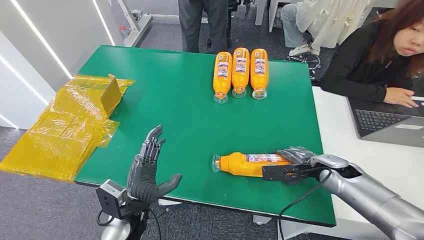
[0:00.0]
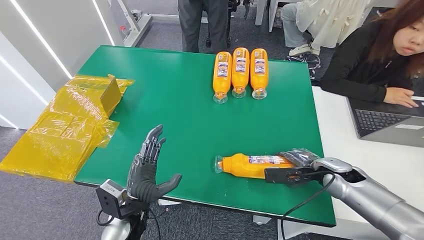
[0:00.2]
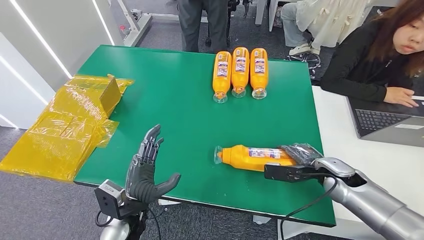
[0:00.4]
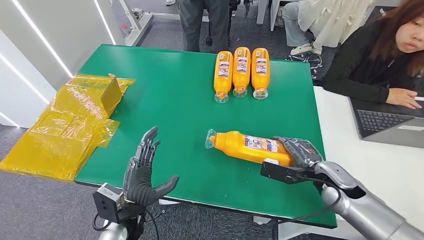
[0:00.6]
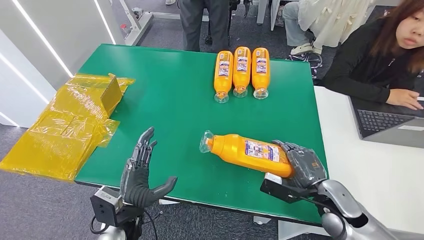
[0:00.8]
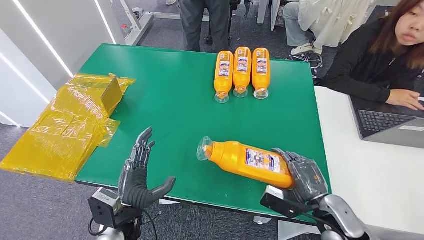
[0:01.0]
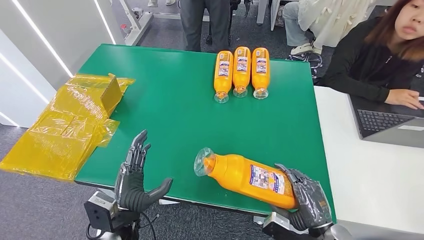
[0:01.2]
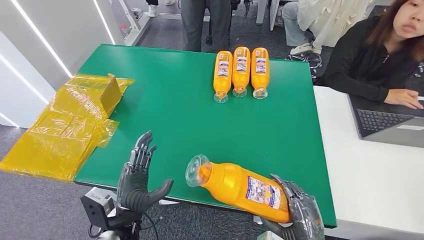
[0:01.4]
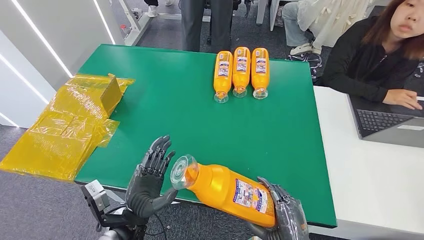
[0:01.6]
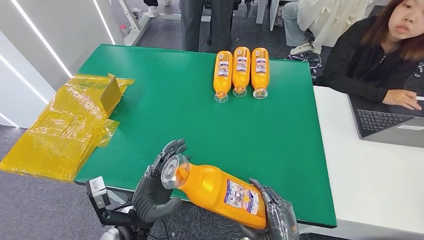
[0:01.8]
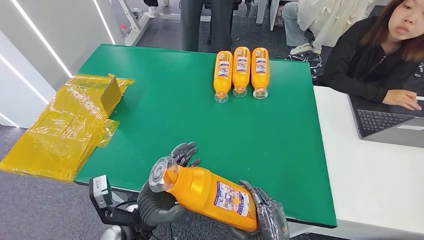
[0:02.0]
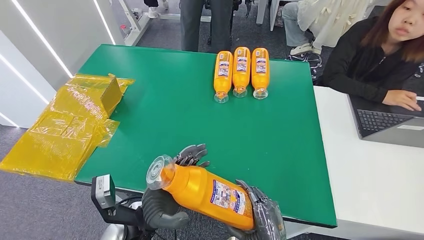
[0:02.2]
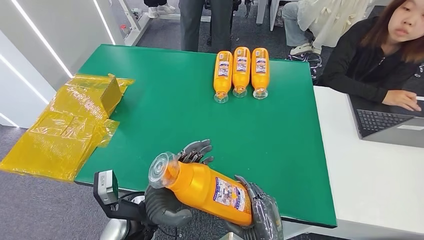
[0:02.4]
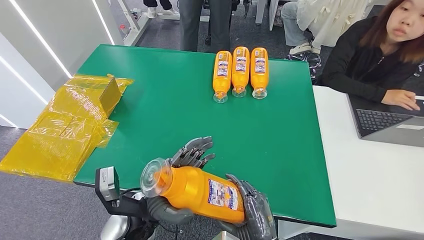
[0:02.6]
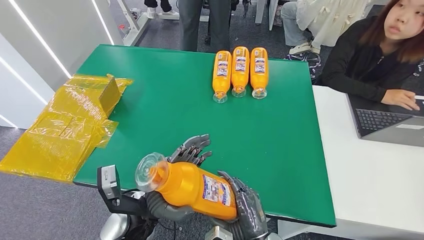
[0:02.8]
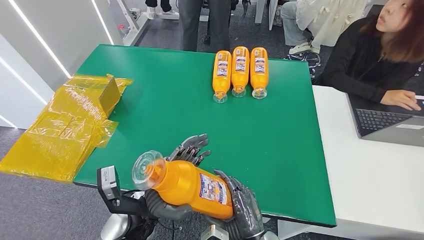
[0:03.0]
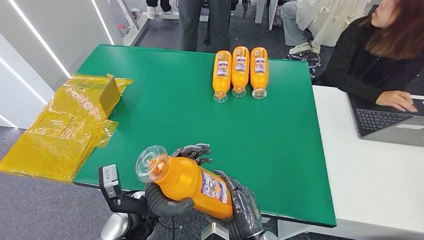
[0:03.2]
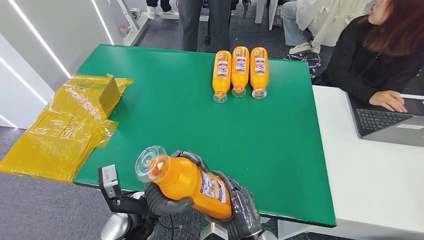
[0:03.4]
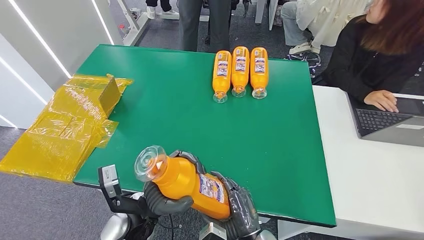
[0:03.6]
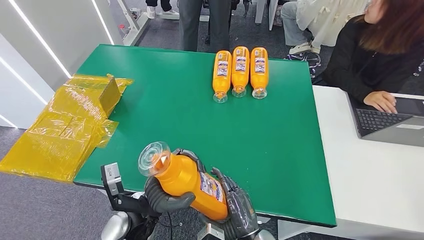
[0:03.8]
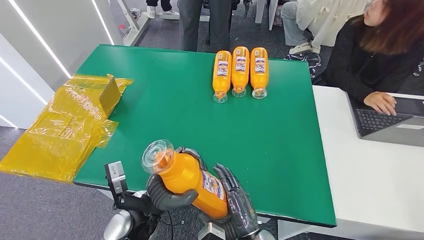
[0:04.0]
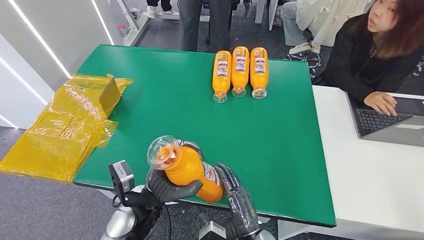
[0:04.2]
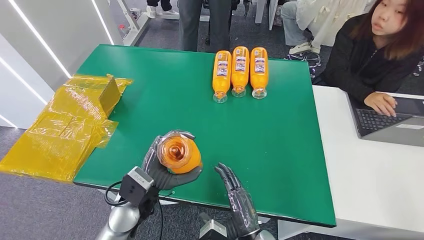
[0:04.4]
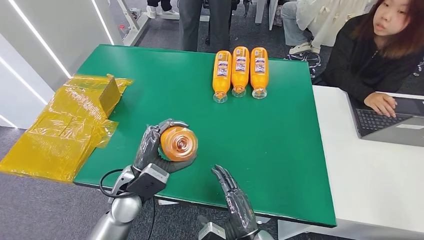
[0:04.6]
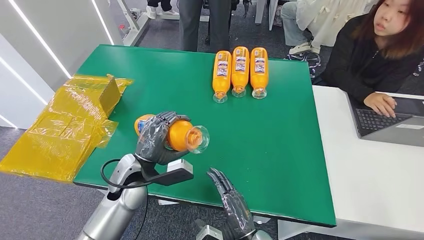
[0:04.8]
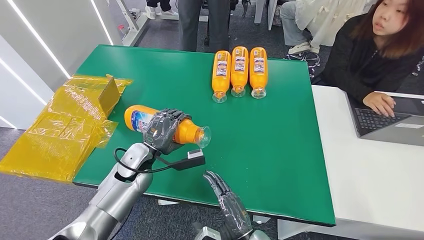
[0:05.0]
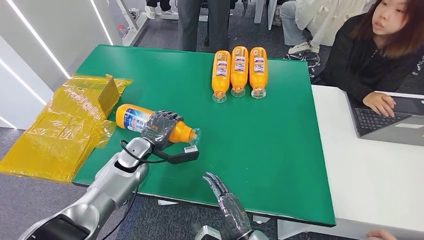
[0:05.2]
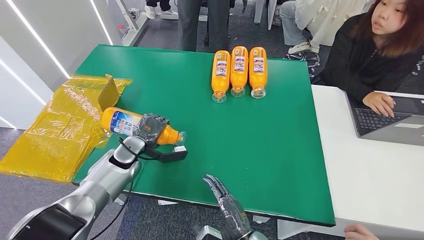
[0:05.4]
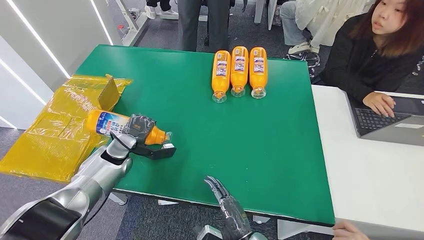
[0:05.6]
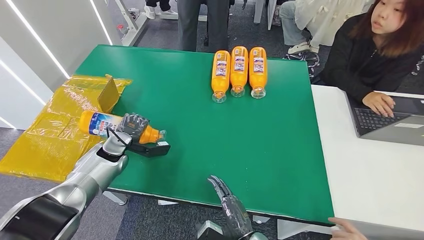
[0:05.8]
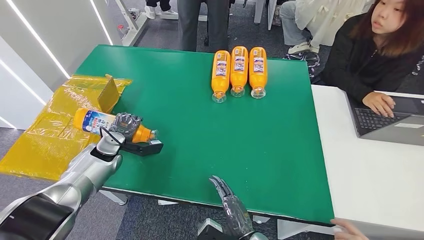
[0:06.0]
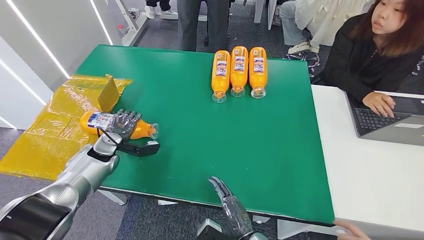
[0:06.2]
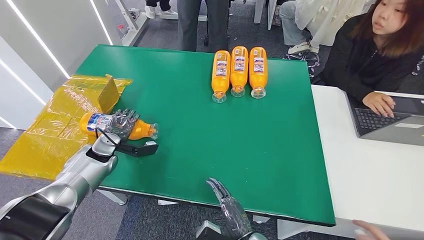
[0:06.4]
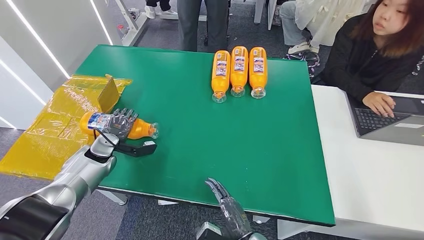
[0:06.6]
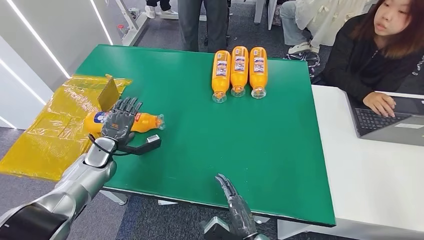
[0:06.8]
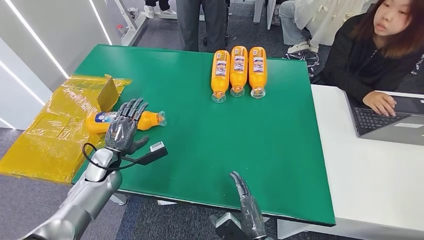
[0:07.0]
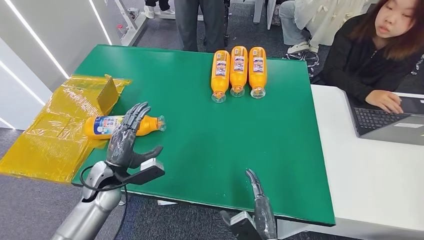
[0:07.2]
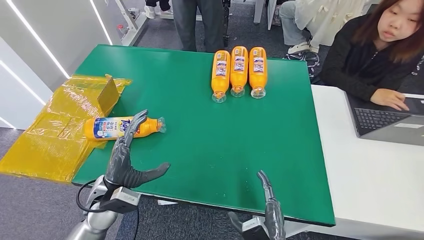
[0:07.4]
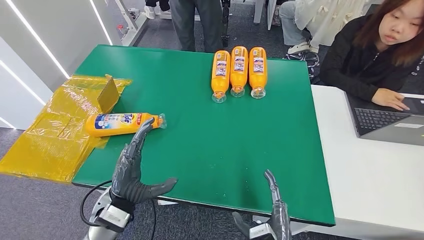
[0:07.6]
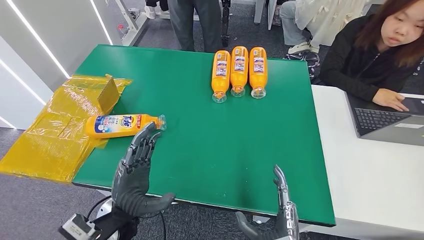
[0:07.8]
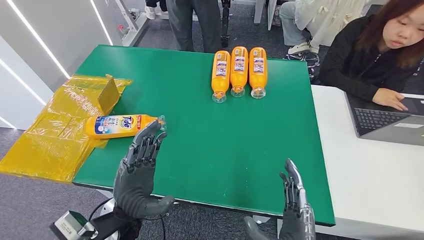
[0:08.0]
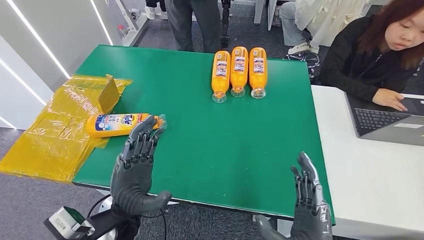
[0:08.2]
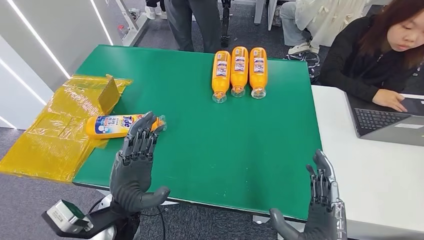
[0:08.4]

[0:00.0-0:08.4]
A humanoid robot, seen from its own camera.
Step, 0:00.0 to 0:02.6: Pick up the bottle from the table.
Step, 0:02.8 to 0:08.4: Turn the bottle to the front side.
0:01.4 to 0:02.8: The left hand moves about 5 cm; the right hand goes about 15 cm to the left.
0:02.8 to 0:04.2: The hands move only a little.
0:04.2 to 0:05.6: The left hand heads to the left and forward, covering approximately 25 cm.
0:05.6 to 0:07.0: The left hand moves approximately 5 cm.
0:07.0 to 0:08.4: The right hand moves upward and to the right, approximately 15 cm, while the left hand travels to the right, backward and upward by approximately 25 cm.
